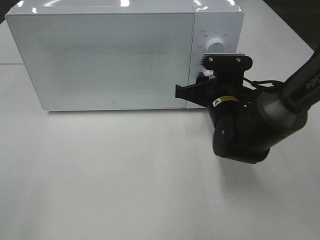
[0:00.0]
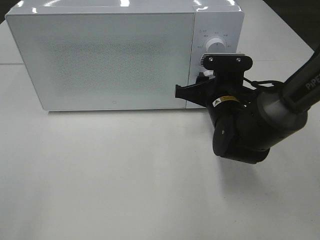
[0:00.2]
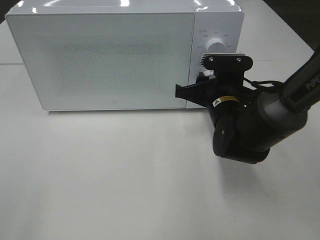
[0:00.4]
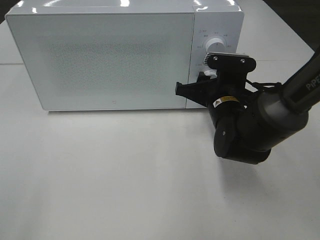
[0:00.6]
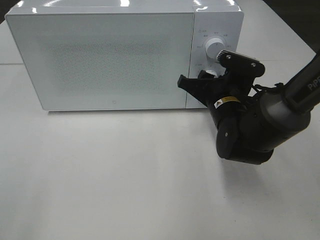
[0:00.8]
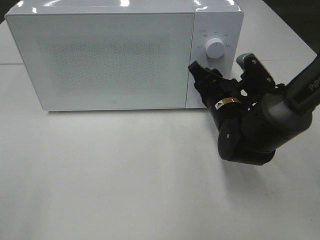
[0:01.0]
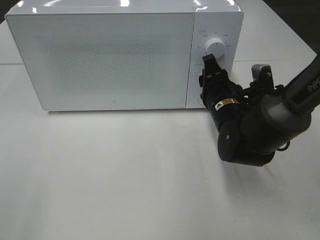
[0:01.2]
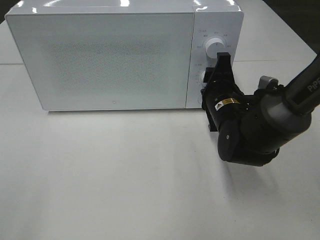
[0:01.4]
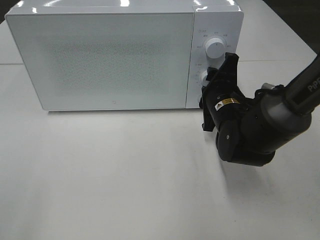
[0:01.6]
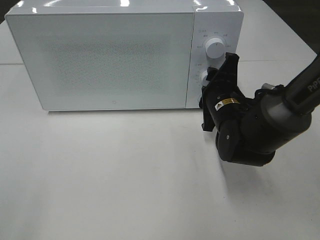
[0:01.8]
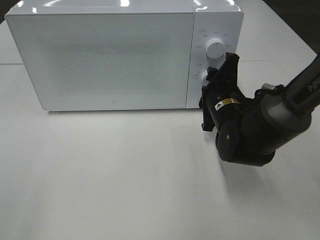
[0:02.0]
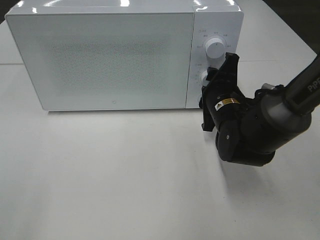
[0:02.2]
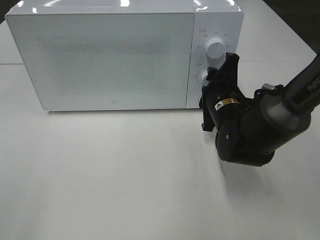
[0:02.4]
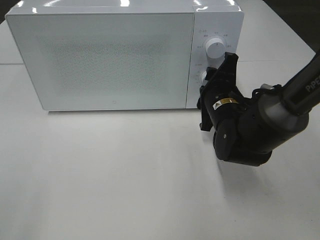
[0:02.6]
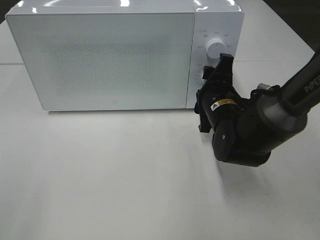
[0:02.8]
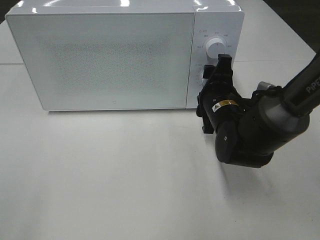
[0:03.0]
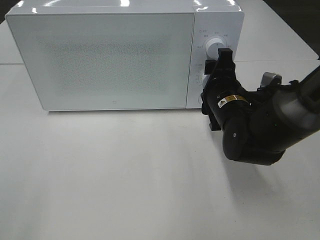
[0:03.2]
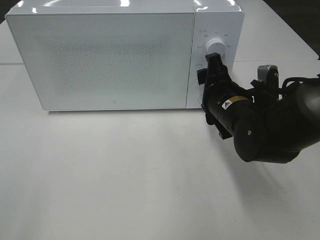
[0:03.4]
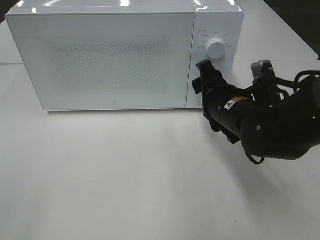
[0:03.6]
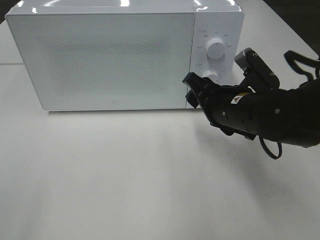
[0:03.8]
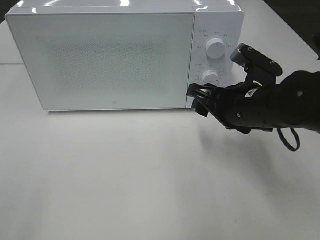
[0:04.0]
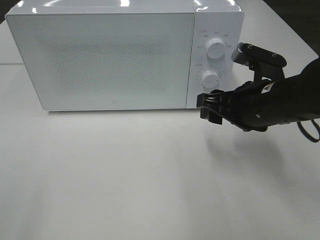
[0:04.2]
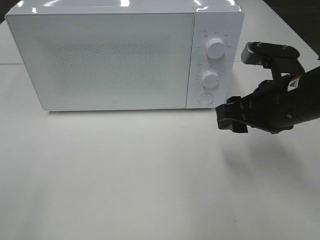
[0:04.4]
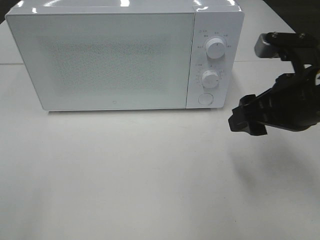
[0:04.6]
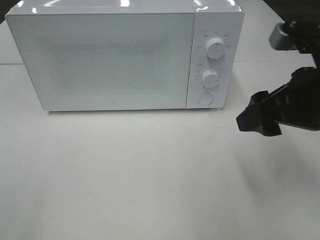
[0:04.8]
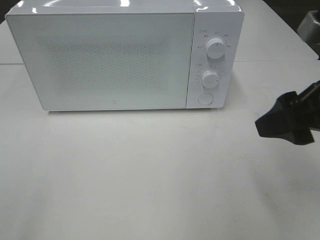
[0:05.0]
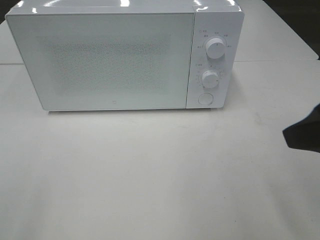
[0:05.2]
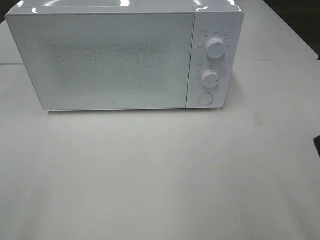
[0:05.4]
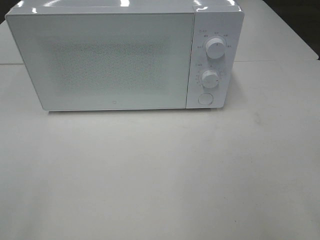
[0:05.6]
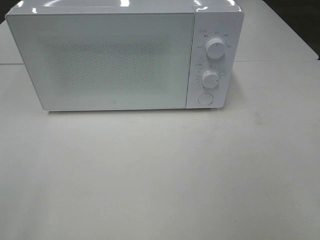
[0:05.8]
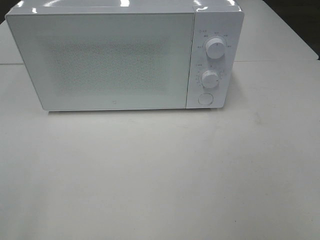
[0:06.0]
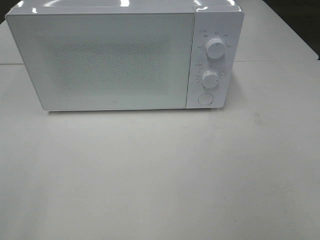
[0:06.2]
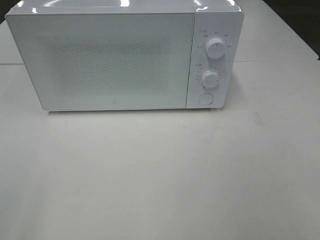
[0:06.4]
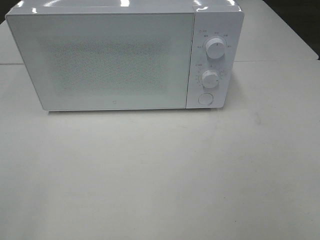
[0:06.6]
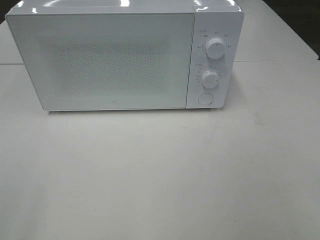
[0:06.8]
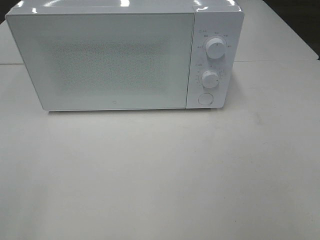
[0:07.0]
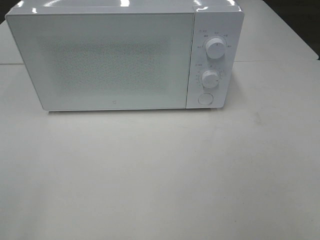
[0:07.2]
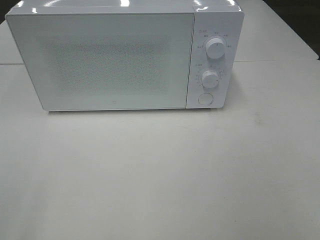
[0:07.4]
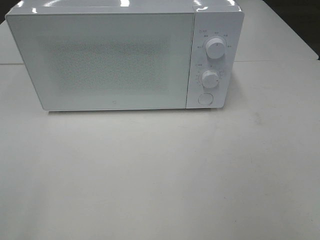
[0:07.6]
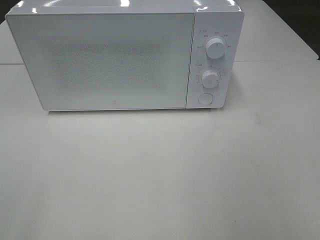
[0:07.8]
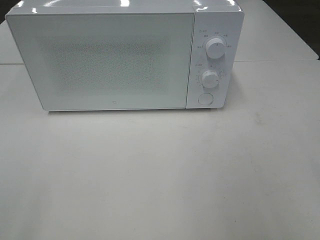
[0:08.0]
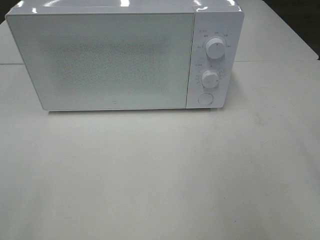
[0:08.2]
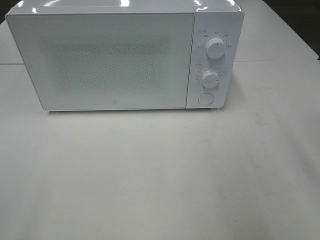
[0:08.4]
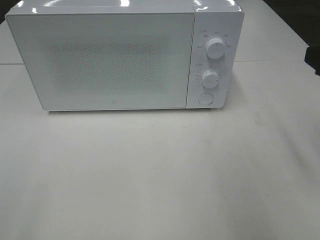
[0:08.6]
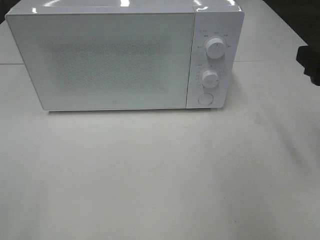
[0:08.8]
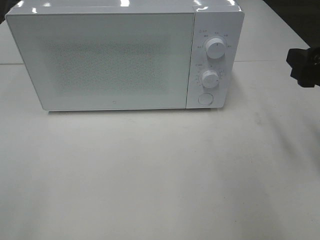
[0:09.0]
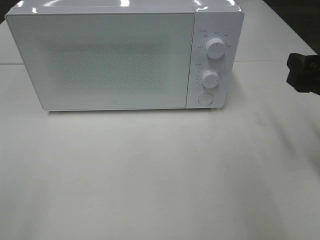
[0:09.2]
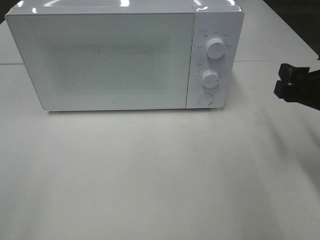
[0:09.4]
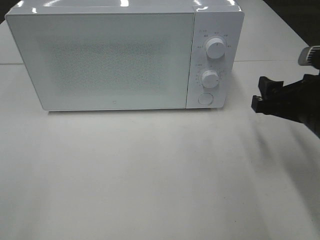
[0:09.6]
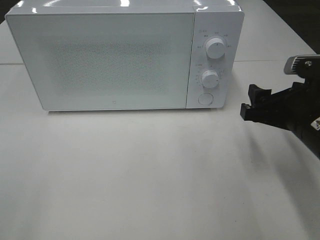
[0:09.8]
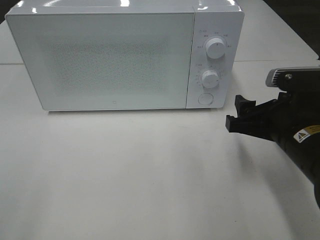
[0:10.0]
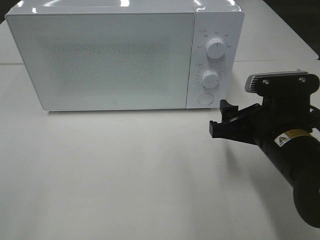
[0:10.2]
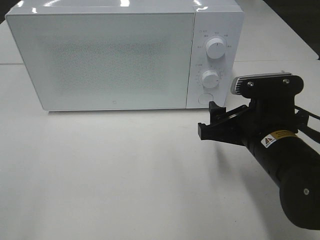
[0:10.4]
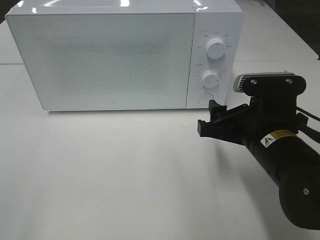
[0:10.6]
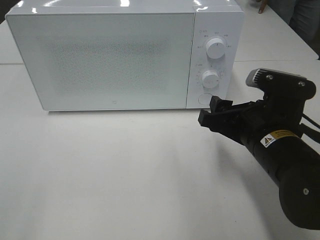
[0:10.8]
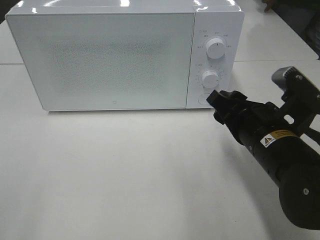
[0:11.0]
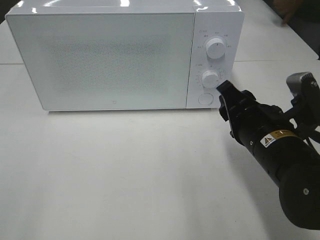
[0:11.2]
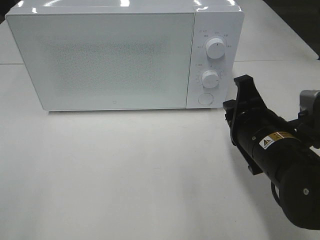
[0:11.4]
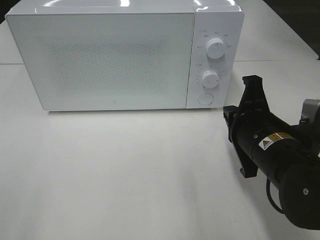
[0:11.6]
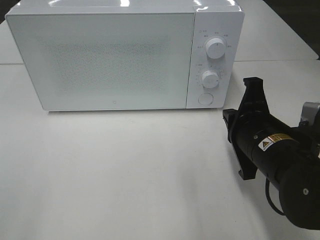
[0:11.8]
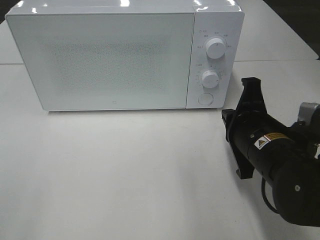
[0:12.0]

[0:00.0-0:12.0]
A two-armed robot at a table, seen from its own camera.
Task of the whole recording: Heat the burger.
Step, 0:00.0 to 0:02.8: Right hand: twist timer button.
0:01.6 to 0:03.0: The grippers stay close to where they were, moving slightly.
0:03.0 to 0:04.4: The right gripper heads upward, backward and to the right, covering roughly 15 cm.
0:04.4 to 0:06.0: The right gripper travels backward, upward and to the right by approximately 25 cm.
0:07.6 to 0:09.0: The right gripper moves forward, about 20 cm.
0:09.0 to 0:10.4: The right gripper moves to the left and downward, approximately 15 cm.
0:10.4 to 0:12.0: The right gripper closes.

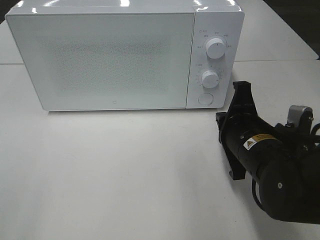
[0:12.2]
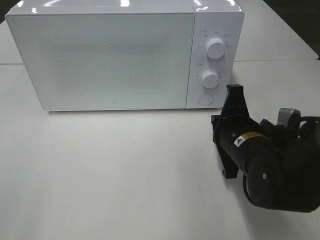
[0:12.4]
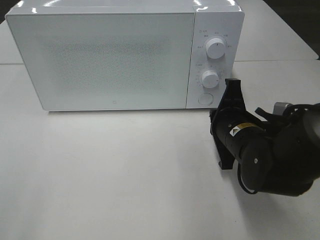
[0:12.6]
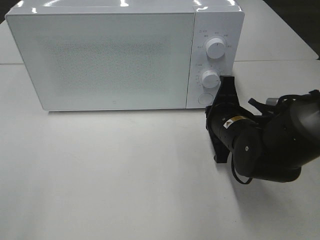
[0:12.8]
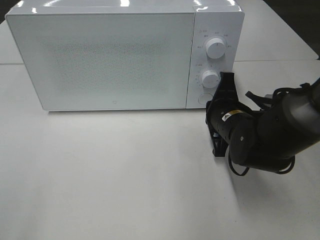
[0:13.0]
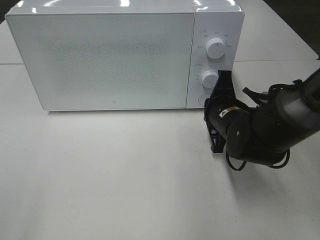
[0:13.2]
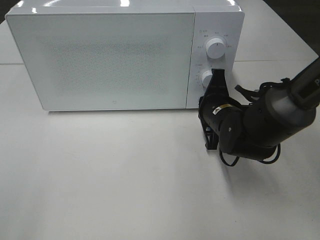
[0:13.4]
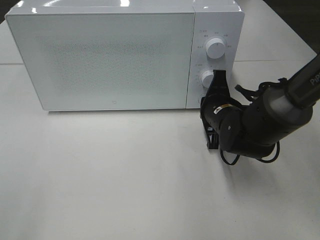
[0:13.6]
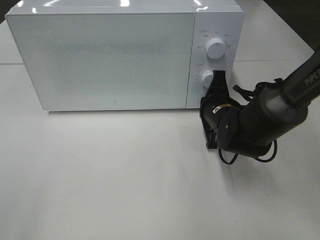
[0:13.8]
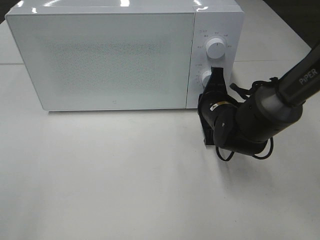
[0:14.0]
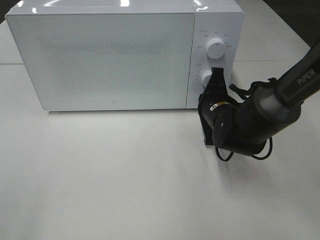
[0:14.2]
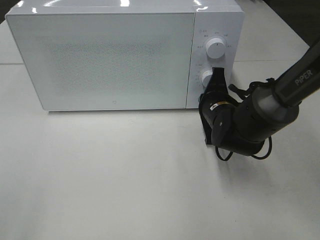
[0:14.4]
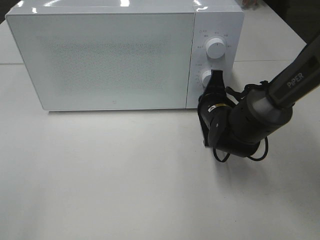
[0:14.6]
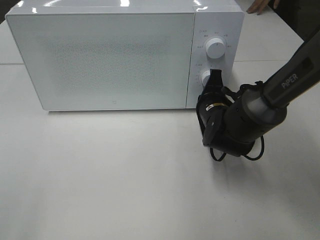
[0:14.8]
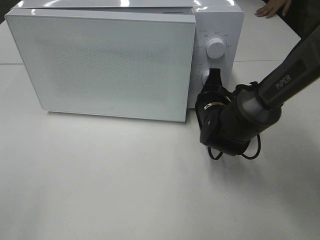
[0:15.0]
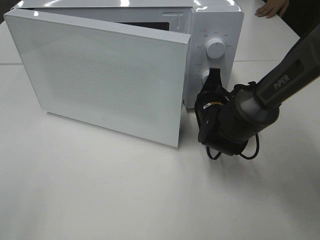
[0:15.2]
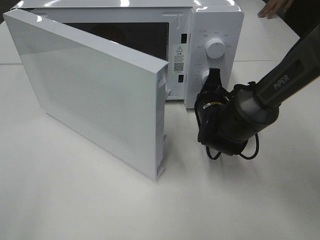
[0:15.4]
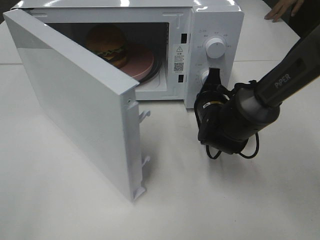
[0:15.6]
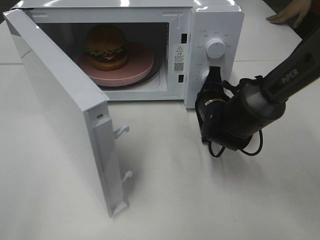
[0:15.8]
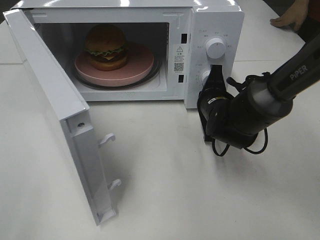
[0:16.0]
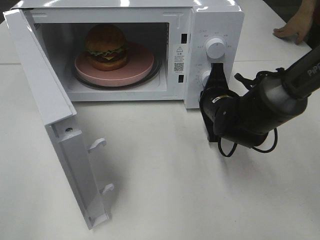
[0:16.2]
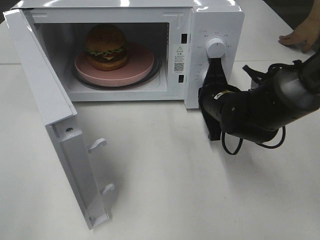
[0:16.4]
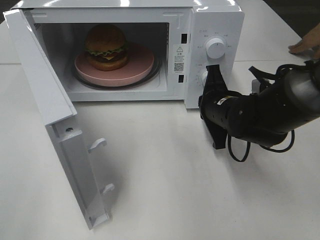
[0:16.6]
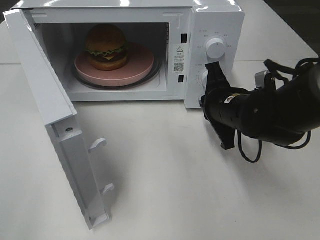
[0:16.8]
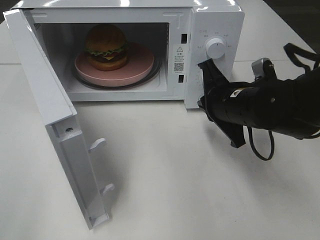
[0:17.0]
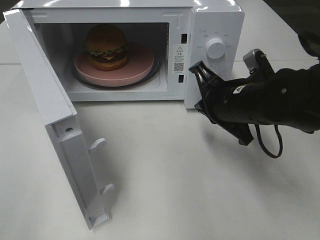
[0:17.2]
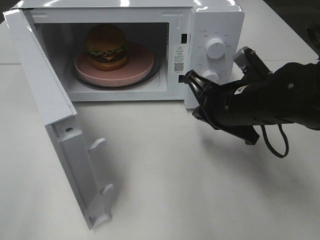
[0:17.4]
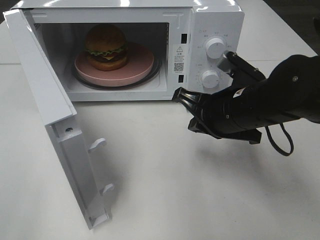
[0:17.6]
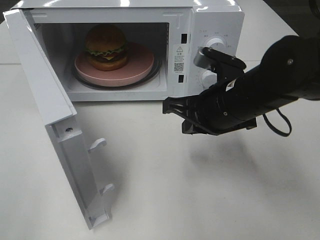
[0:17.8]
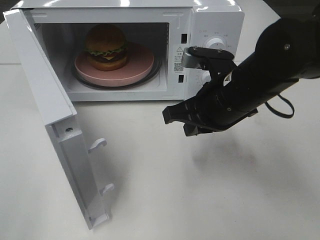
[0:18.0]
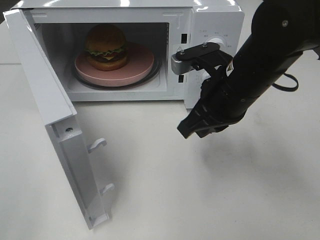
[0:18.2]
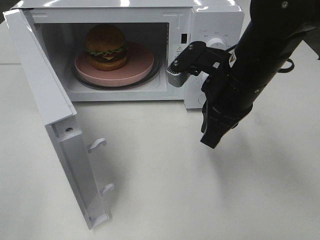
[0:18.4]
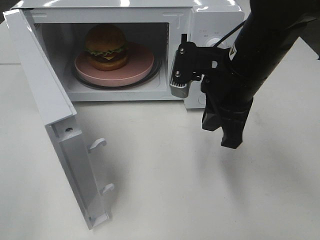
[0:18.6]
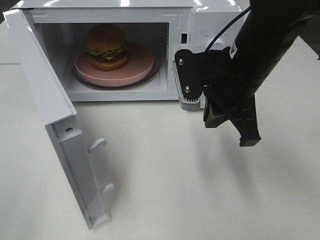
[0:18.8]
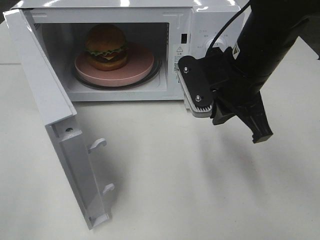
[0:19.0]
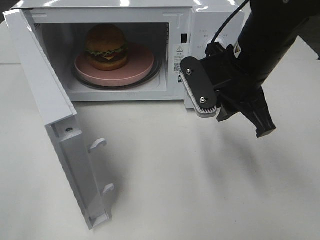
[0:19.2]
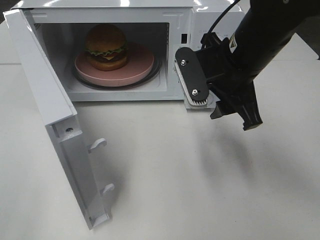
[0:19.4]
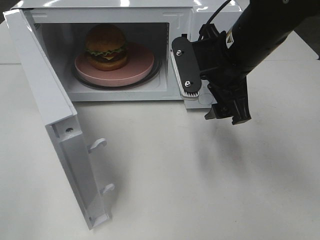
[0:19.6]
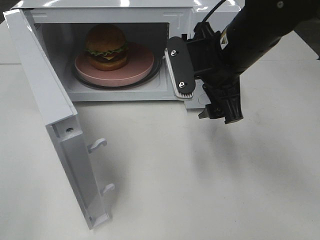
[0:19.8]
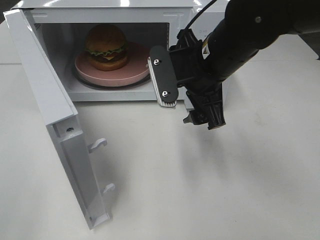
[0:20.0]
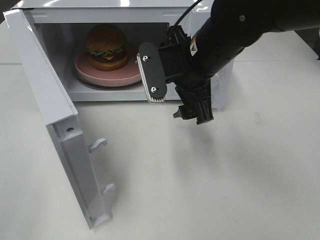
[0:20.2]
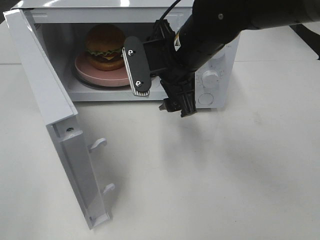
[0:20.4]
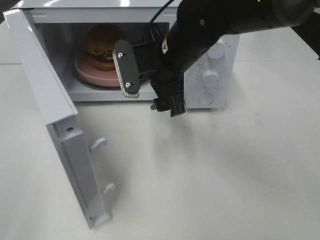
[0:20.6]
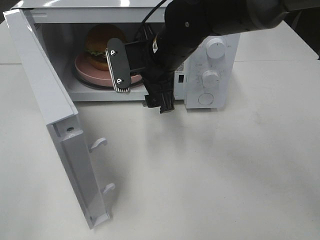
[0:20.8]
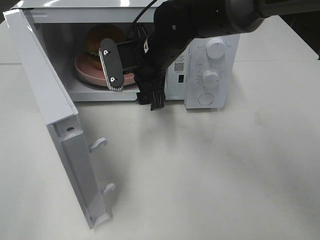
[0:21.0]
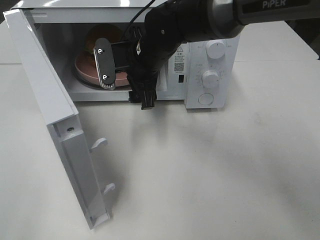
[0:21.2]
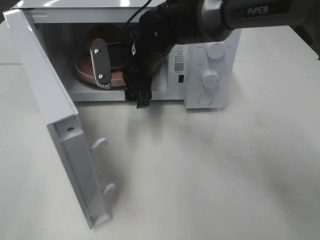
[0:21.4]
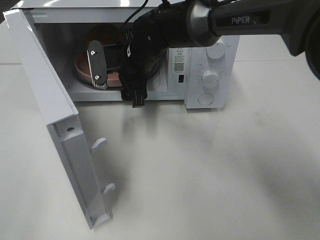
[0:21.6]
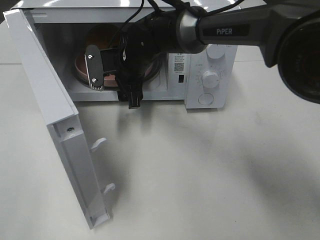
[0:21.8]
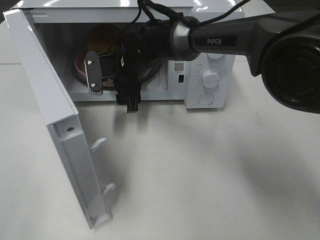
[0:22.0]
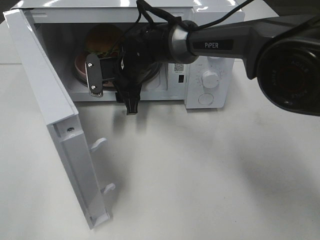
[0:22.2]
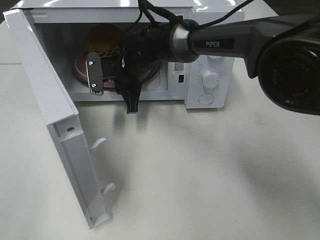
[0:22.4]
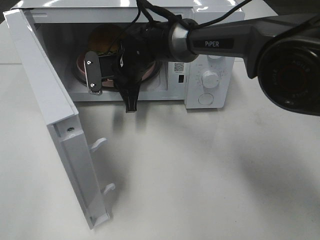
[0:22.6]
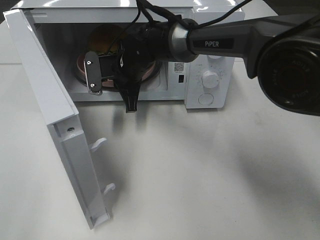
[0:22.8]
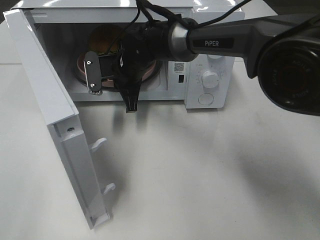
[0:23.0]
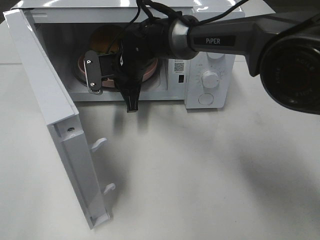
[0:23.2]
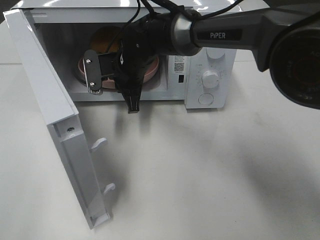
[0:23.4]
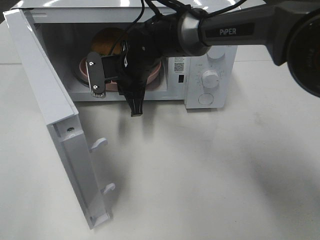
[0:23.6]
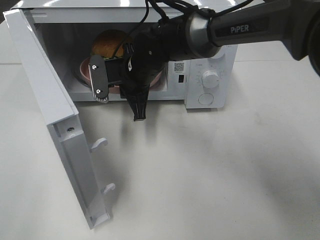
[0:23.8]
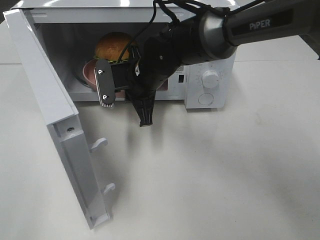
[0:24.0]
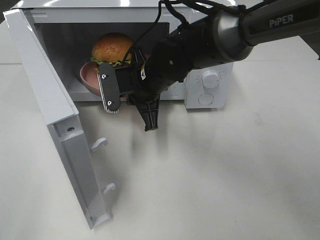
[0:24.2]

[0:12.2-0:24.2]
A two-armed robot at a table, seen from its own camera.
Task of the whole recording: Heat the burger.
Step, 0:12.2 to 0:16.2: Right hand: press the switch.
Step, 0:16.4 to 0:22.4: Right hand: grab the plate with the hamburger.
0:12.2 to 0:13.8: The right gripper shifts some 10 cm forward.
0:15.2 to 0:16.6: The right gripper moves about 5 cm.
0:16.6 to 0:18.2: The right gripper heads upward, covering some 10 cm.
0:18.2 to 0:19.8: The right gripper opens.
0:19.8 to 0:21.2: The right gripper travels to the left, forward and downward by about 15 cm.
0:21.2 to 0:22.6: The right gripper heads downward, covering some 5 cm, and closes its fingers.
0:22.6 to 0:24.2: The right gripper travels backward by about 5 cm.
